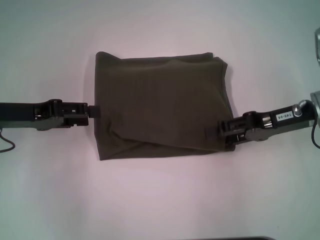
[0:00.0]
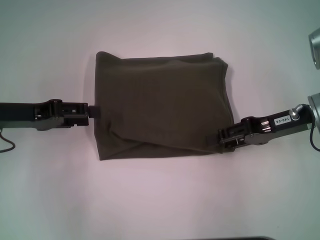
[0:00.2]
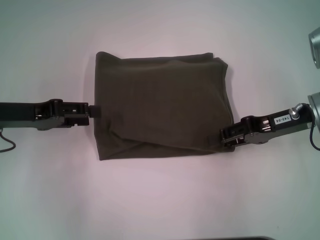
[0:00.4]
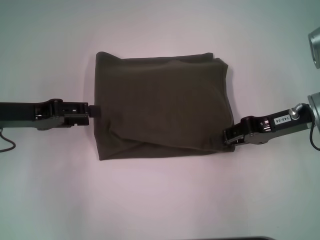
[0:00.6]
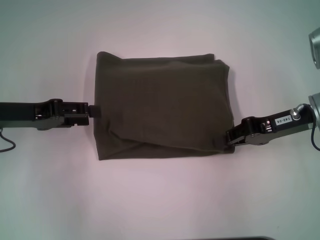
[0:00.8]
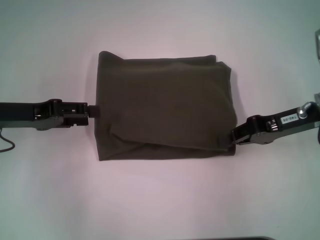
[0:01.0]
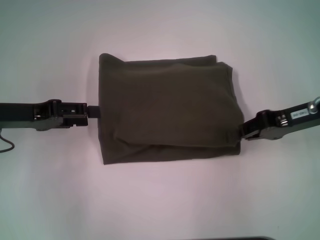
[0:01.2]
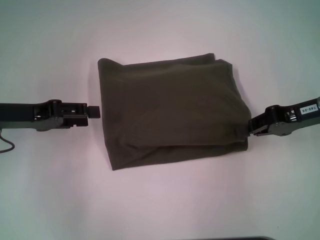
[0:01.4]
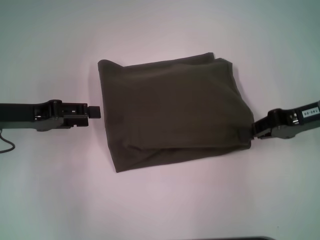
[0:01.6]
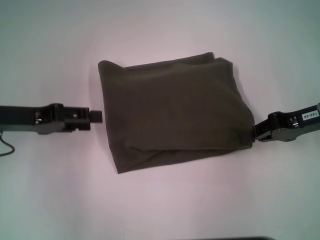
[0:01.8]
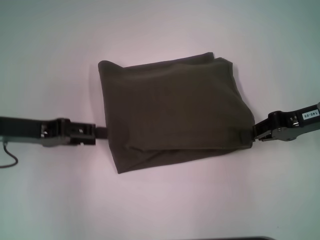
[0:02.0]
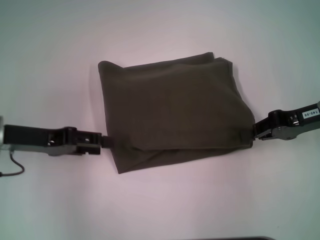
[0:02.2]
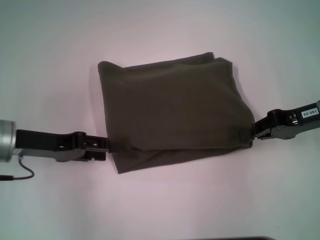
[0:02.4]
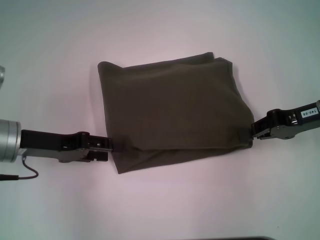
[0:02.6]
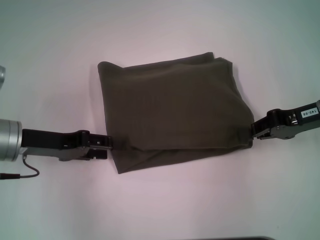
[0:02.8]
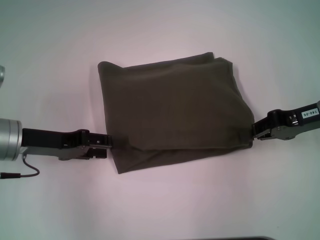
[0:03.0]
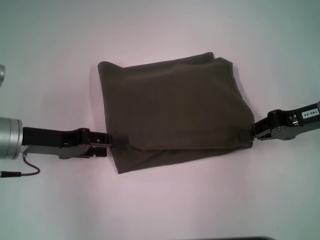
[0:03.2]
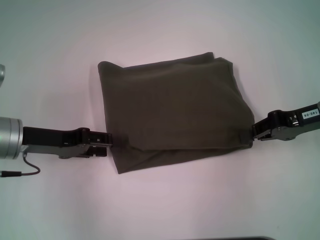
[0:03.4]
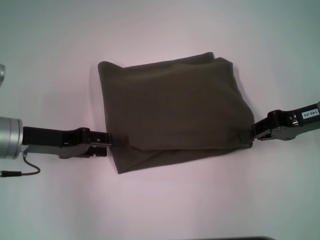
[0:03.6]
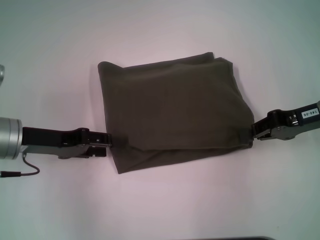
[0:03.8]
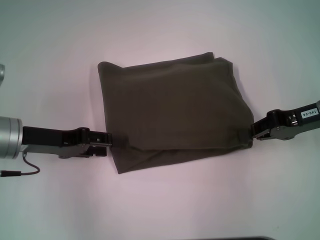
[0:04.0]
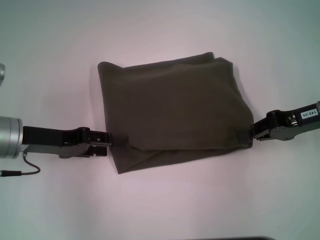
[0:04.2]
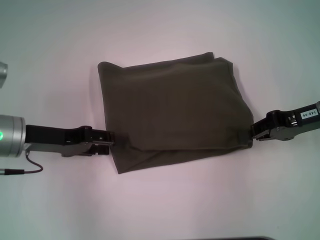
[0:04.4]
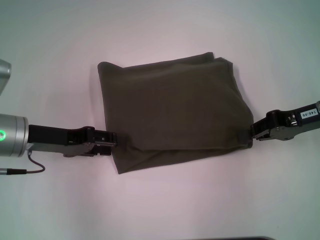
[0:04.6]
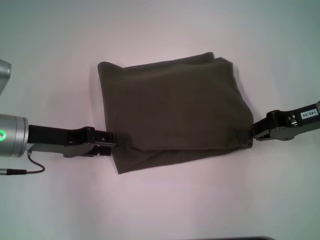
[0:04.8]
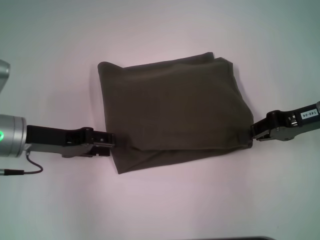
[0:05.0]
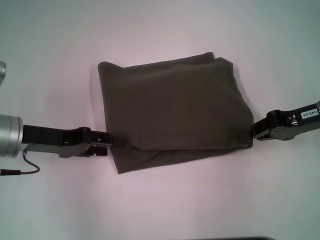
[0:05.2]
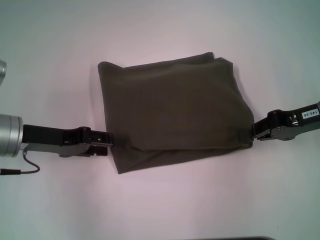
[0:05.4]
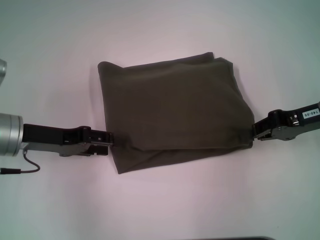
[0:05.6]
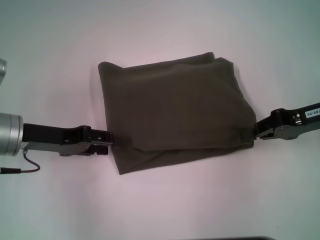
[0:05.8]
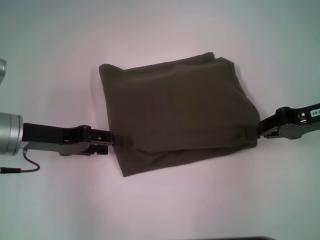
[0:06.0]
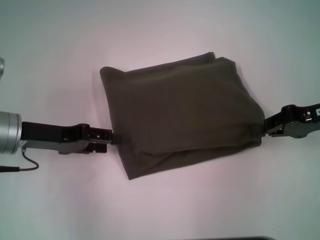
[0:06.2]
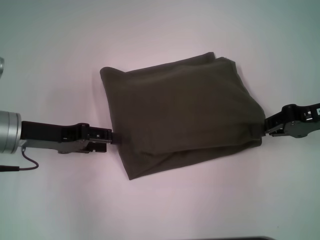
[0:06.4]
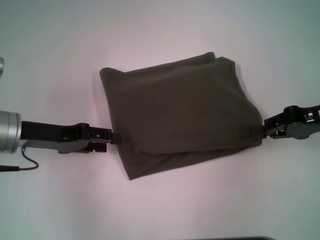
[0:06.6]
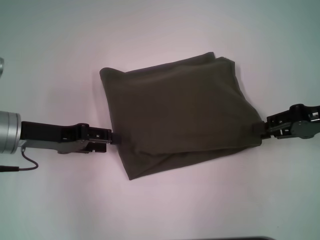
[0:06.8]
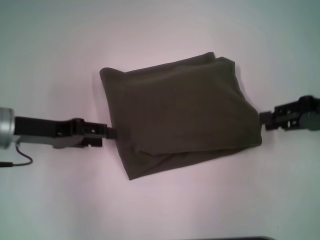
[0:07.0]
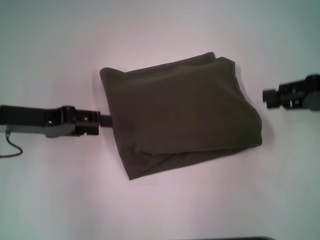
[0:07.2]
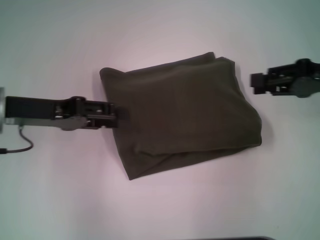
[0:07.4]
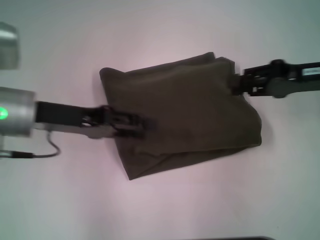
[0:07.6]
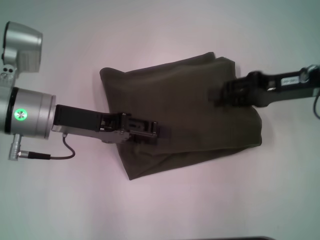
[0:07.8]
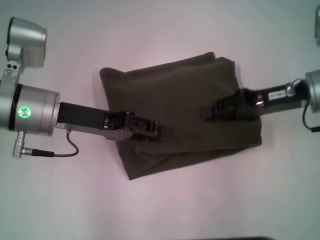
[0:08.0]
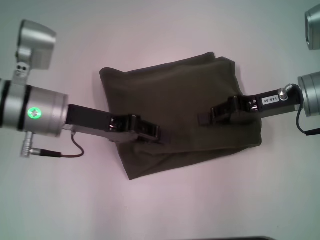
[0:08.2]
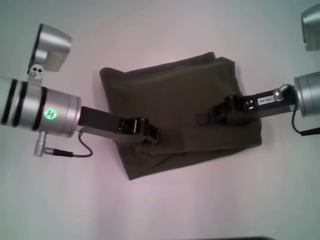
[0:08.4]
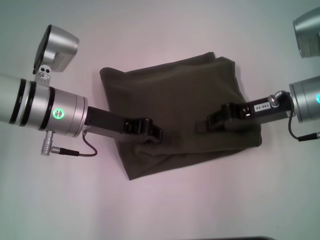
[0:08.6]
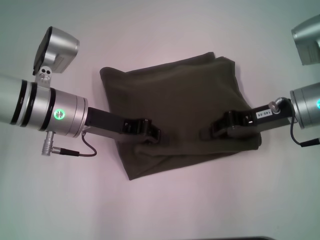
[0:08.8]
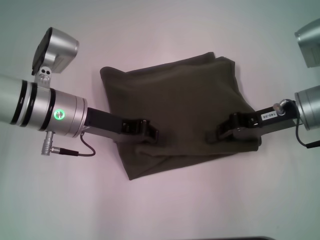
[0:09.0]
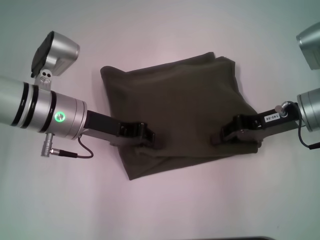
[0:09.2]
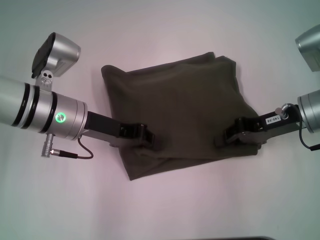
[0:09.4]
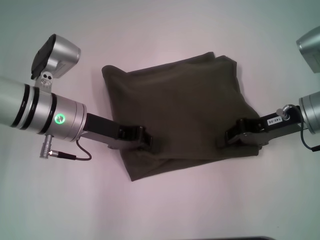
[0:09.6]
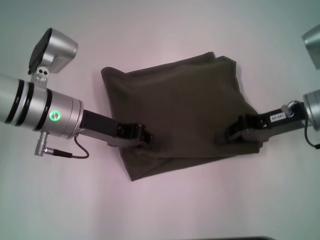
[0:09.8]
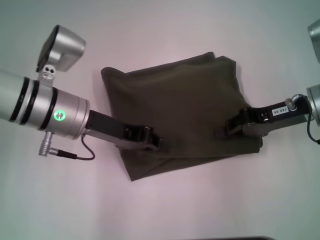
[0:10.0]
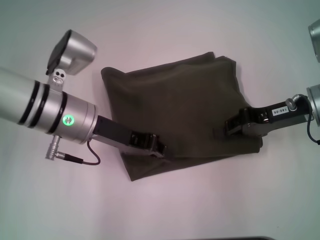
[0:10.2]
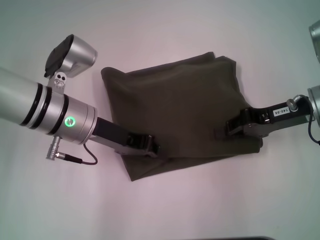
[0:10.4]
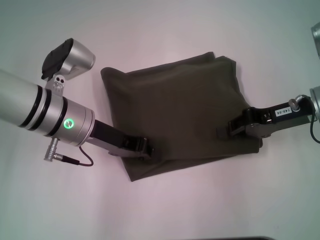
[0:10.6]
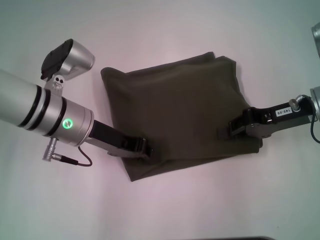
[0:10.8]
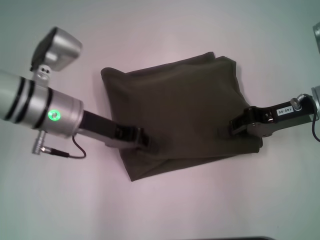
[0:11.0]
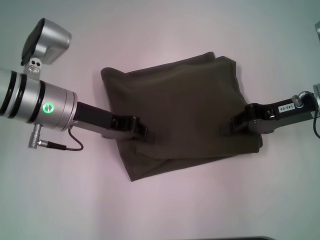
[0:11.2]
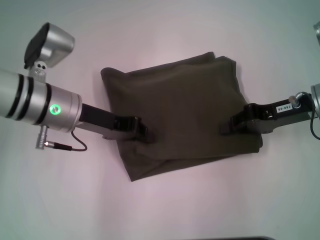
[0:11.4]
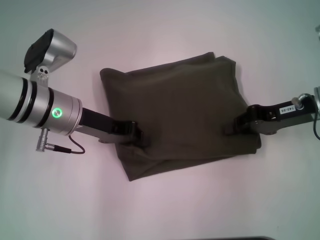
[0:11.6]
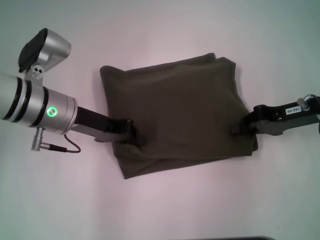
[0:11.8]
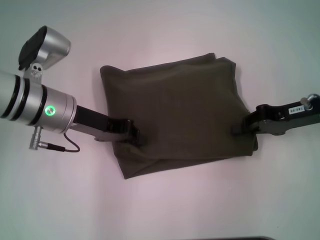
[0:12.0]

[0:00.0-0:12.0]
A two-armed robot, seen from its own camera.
0.0 to 1.6 s: The right gripper closes up.
1.6 to 3.0 s: The grippers move only a little.
3.0 to 6.0 s: Neither gripper changes place.
6.0 to 7.6 s: The right gripper opens its fingers. The left gripper ends up approximately 5 cm from where it was.
7.6 to 9.0 s: The left gripper shifts by some 5 cm, and closes up. The right gripper shifts by approximately 5 cm, and closes its fingers.
9.0 to 12.0 s: There are only small adjustments of the grippers.

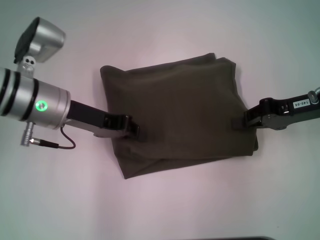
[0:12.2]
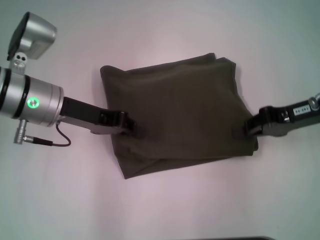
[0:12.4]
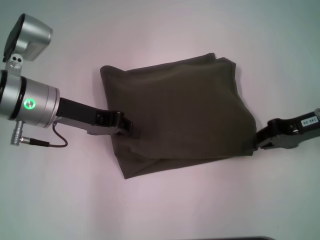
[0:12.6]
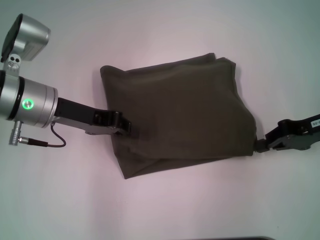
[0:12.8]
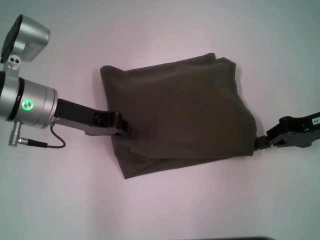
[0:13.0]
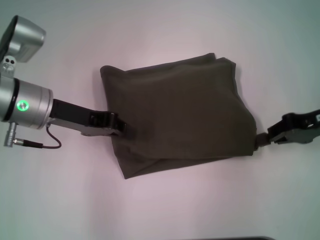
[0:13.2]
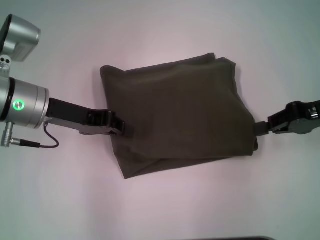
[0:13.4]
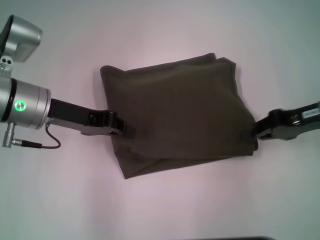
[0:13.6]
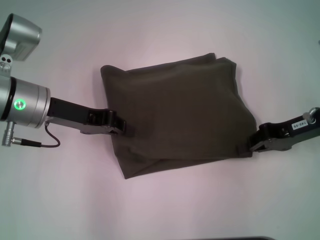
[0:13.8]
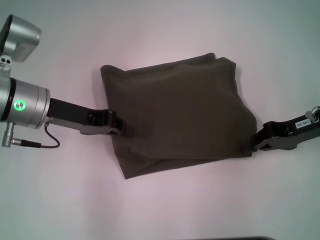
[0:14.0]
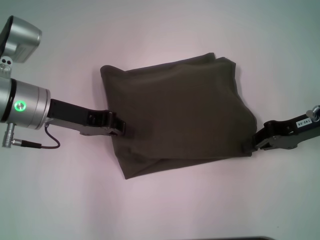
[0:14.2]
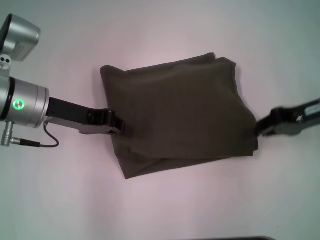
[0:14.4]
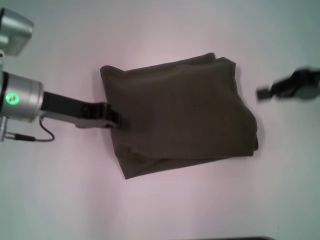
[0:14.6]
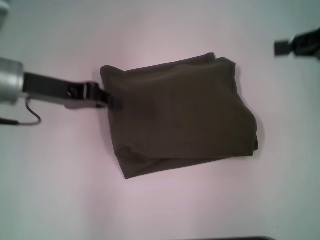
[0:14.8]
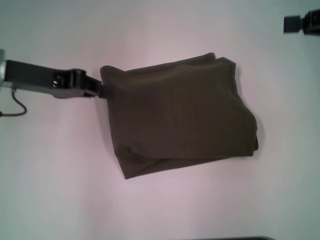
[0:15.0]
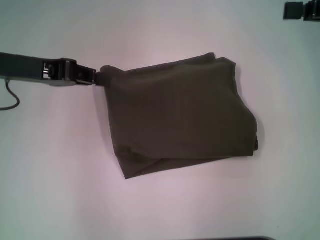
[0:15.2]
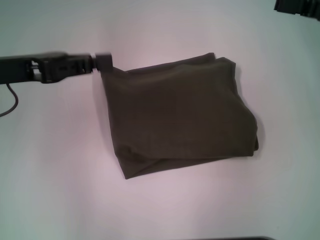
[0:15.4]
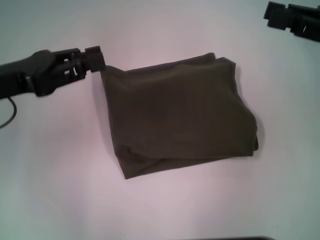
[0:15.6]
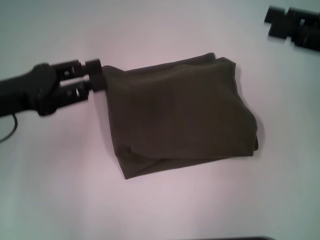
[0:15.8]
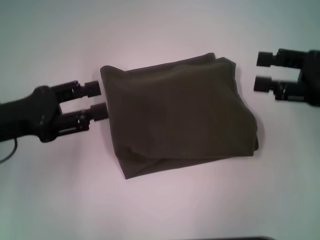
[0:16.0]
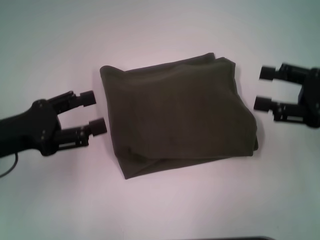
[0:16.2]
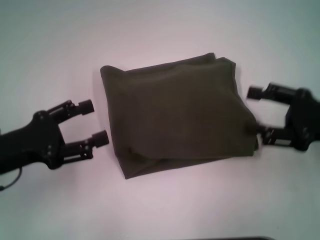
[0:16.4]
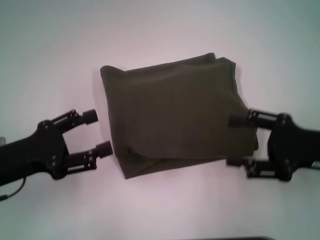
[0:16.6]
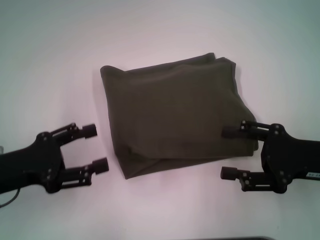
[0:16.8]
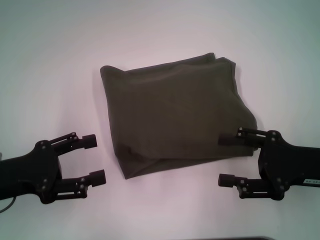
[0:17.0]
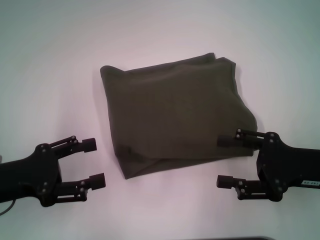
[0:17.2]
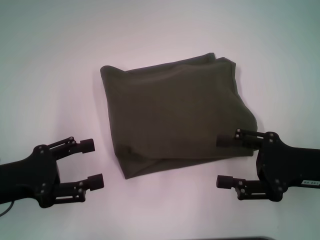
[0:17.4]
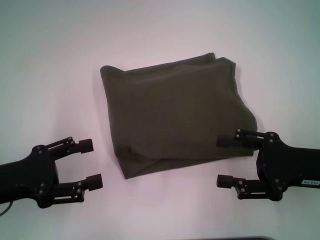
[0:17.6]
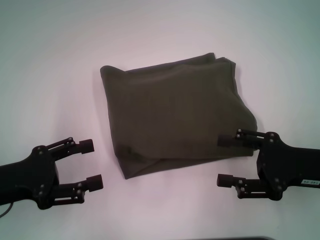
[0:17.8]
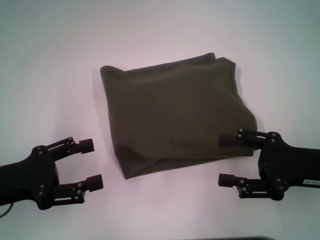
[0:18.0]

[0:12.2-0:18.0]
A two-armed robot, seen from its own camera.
12.2 to 13.6 s: The grippers stay close to where they were, moving slightly.
13.6 to 15.0 s: The right gripper moves upward, some 10 cm. The left gripper moves upward, approximately 5 cm.
15.0 to 16.6 s: The left gripper is displaced backward and downward by about 15 cm, and opens up, while the right gripper goes approximately 20 cm downward, backward and to the left, and opens up.
16.6 to 18.0 s: The grippers move only a little.

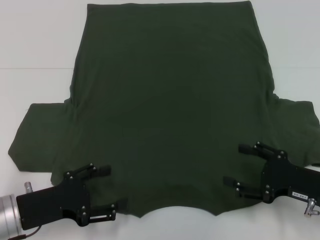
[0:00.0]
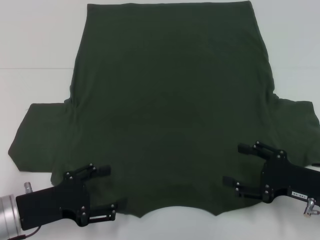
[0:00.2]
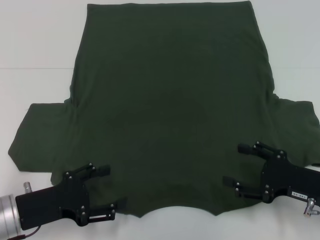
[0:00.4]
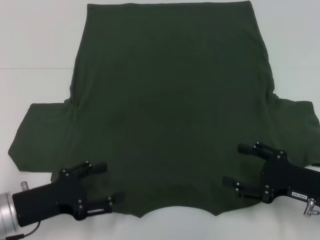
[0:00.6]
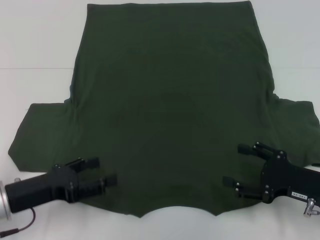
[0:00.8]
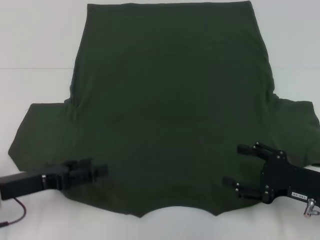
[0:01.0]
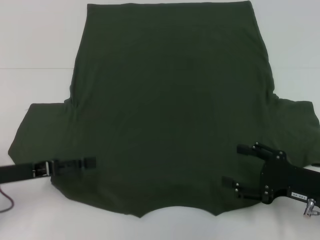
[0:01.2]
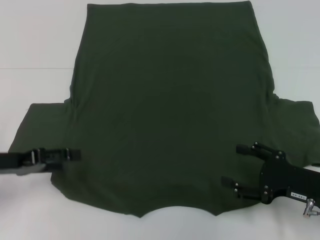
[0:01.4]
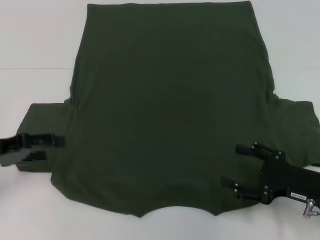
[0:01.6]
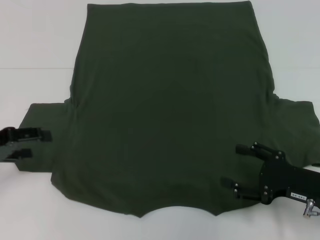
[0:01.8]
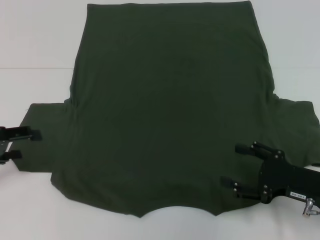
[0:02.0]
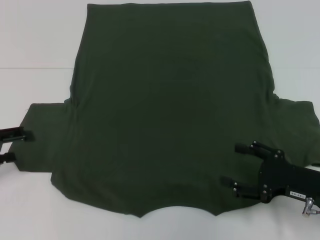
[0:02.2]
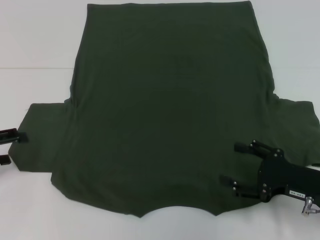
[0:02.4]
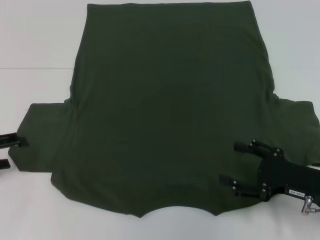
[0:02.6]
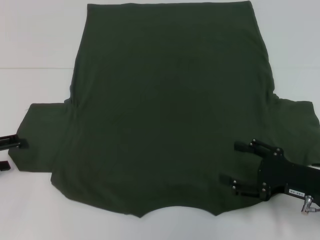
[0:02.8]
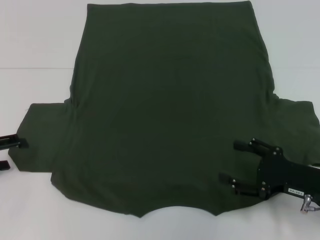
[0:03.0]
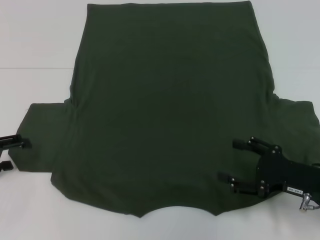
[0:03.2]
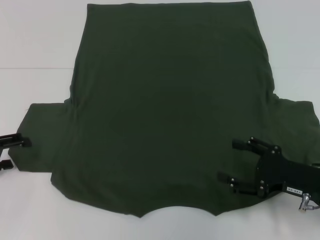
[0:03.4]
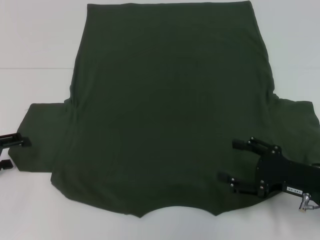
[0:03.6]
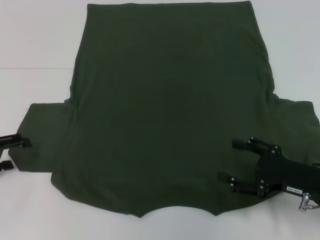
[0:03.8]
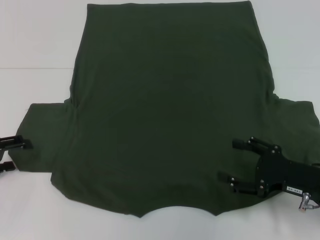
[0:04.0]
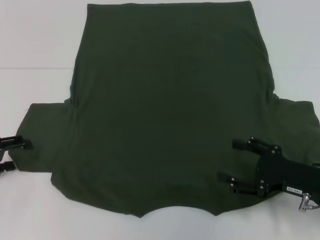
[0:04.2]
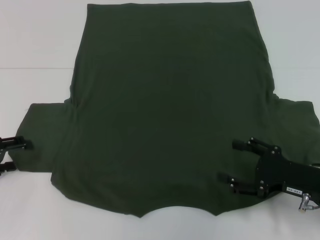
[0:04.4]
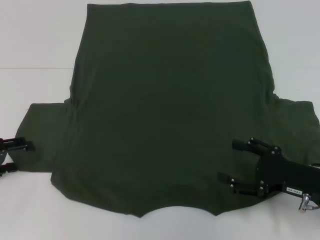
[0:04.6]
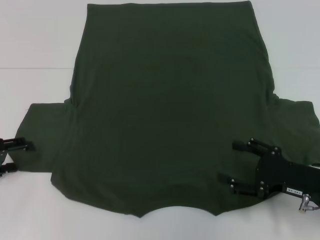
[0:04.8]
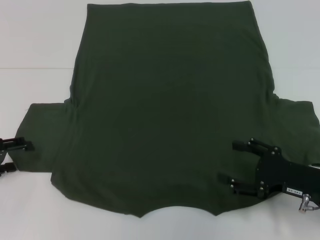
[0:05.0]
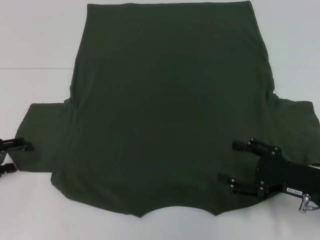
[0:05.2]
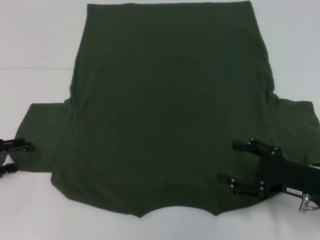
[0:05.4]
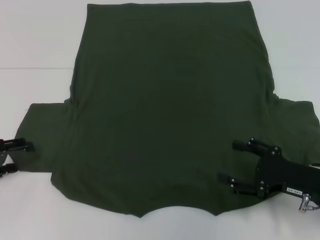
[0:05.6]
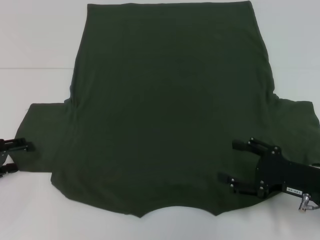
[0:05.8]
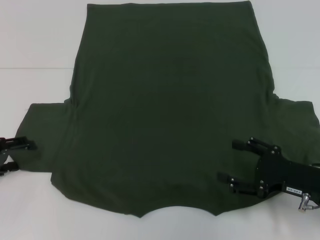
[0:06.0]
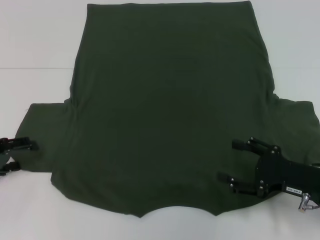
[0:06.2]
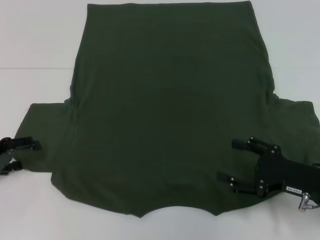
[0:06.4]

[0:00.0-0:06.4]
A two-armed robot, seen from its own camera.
0.0 to 1.6 s: The left gripper moves to the left, upward and forward, some 10 cm.
1.6 to 3.2 s: The left gripper shifts by some 5 cm.
3.2 to 4.8 s: The two grippers keep their place.
4.8 to 6.4 s: Neither gripper changes place.
